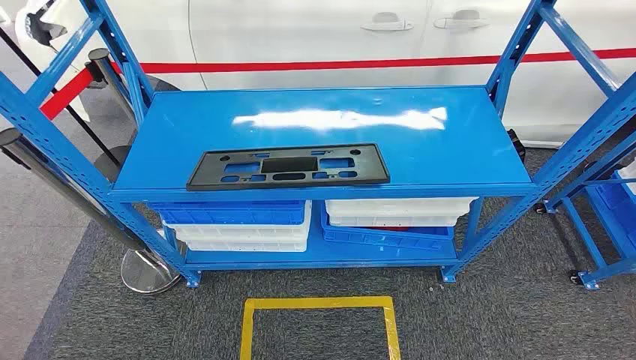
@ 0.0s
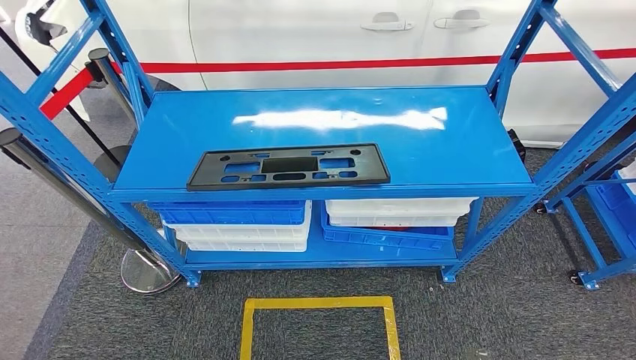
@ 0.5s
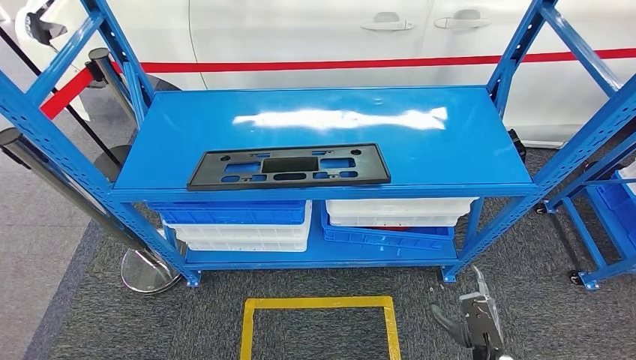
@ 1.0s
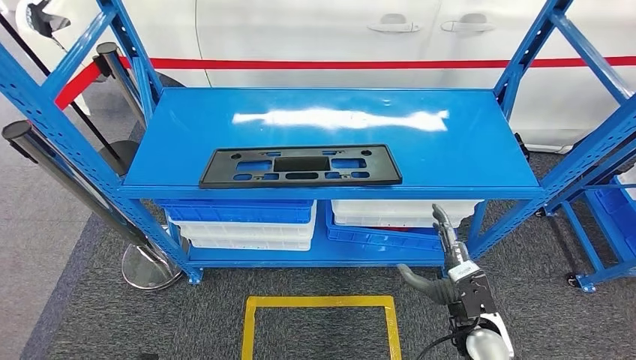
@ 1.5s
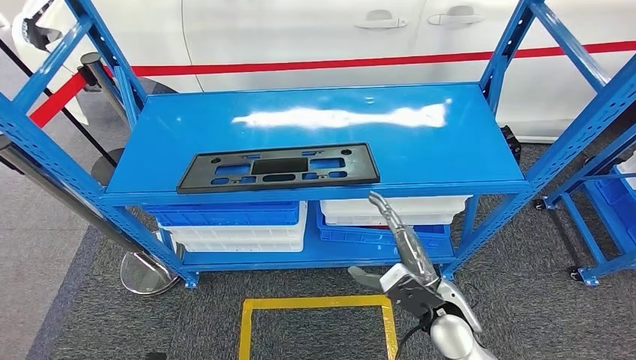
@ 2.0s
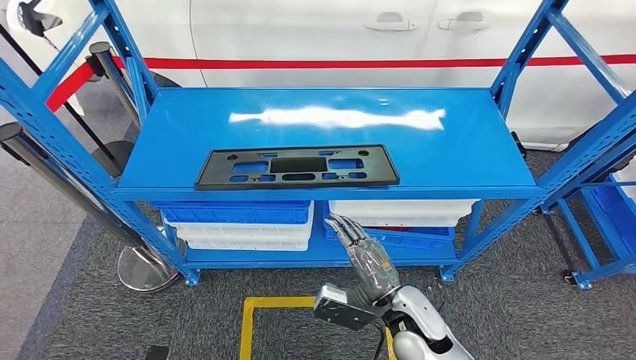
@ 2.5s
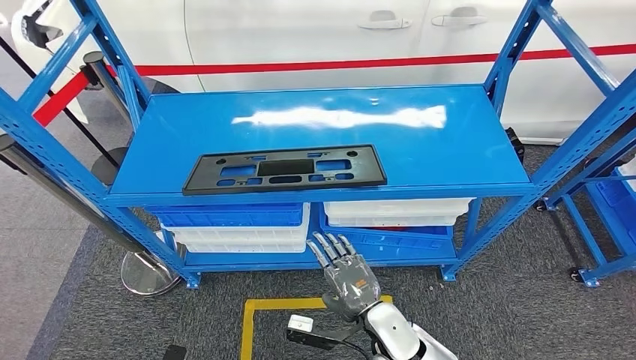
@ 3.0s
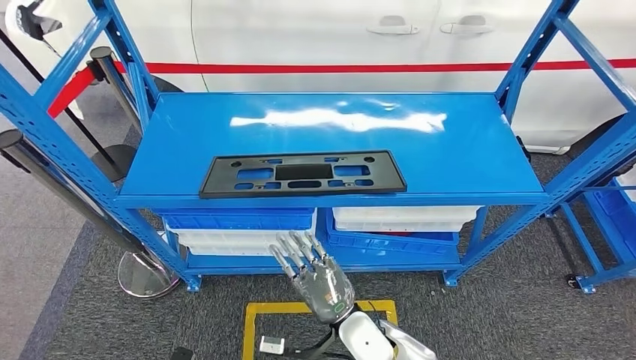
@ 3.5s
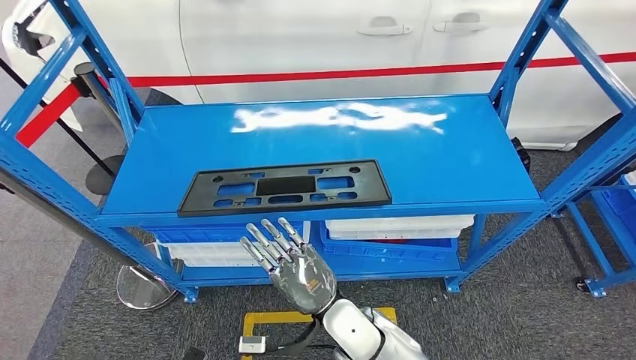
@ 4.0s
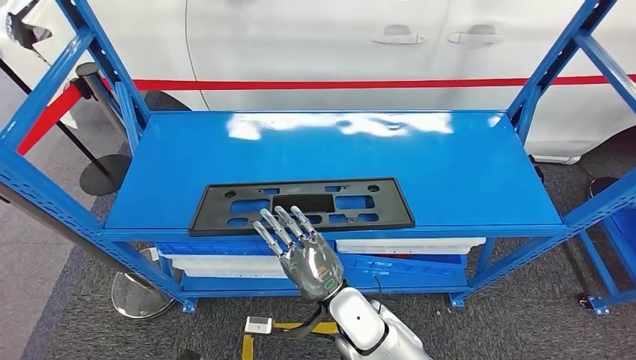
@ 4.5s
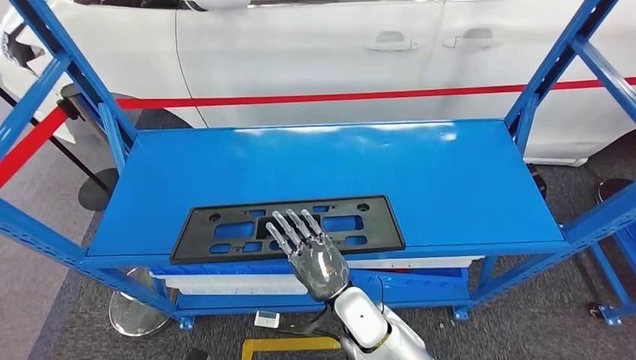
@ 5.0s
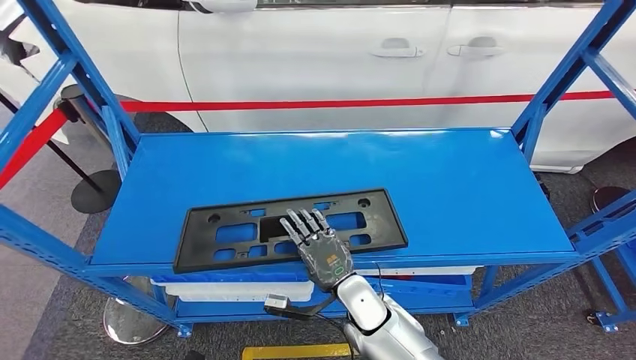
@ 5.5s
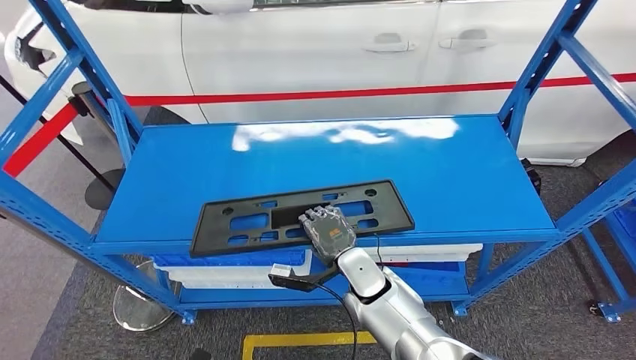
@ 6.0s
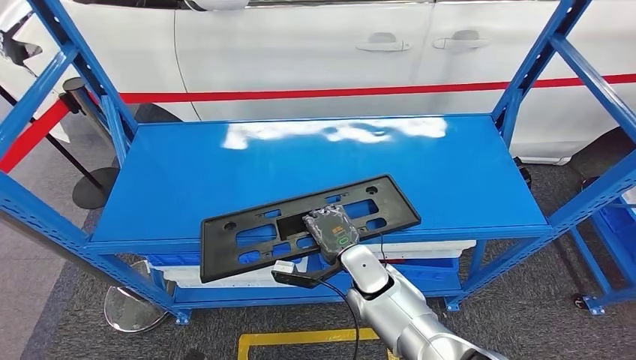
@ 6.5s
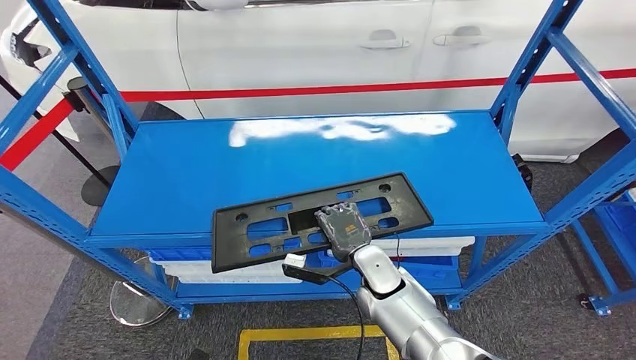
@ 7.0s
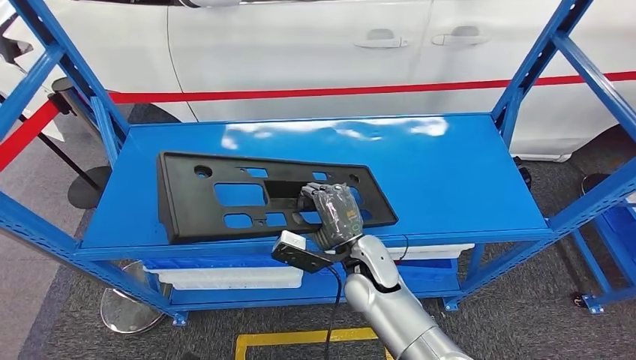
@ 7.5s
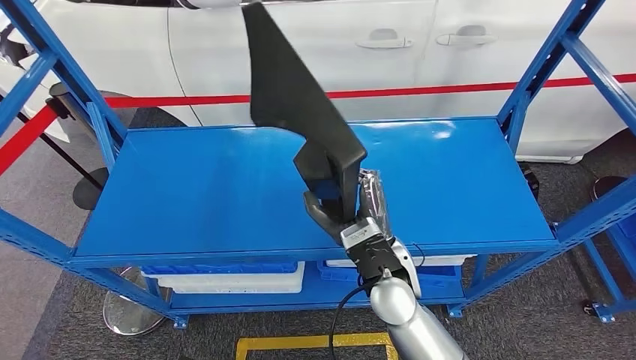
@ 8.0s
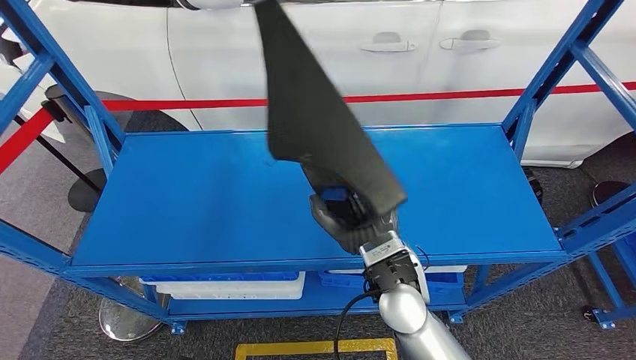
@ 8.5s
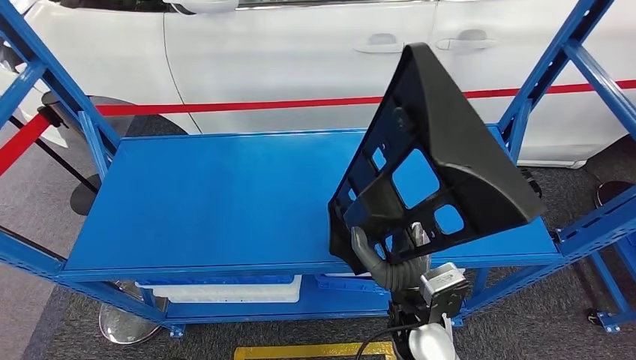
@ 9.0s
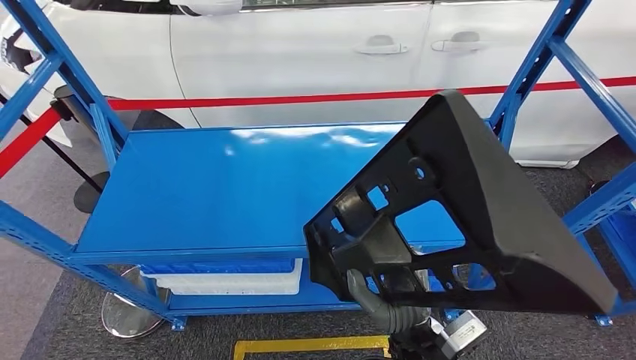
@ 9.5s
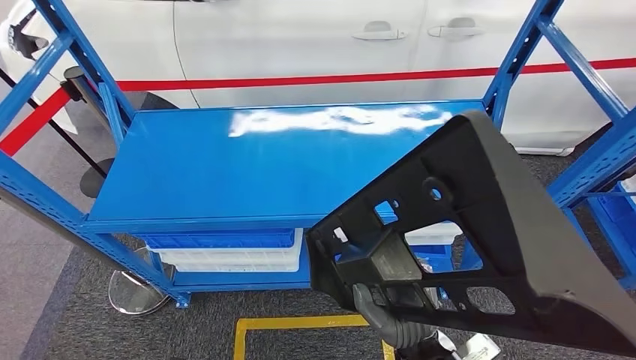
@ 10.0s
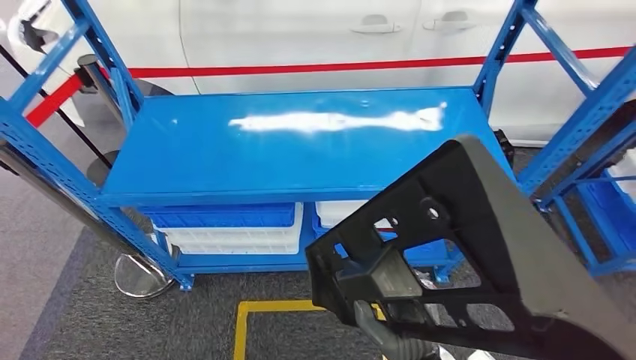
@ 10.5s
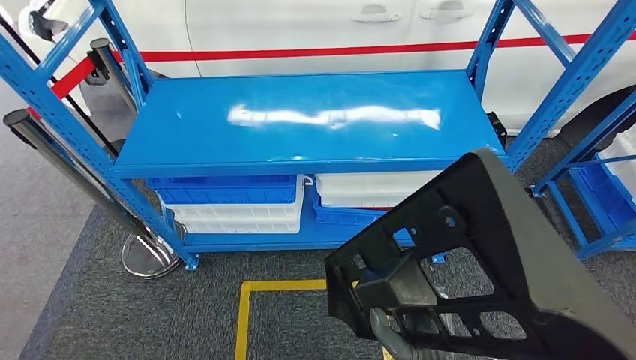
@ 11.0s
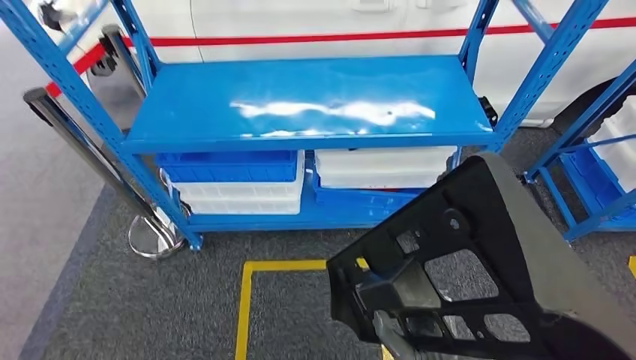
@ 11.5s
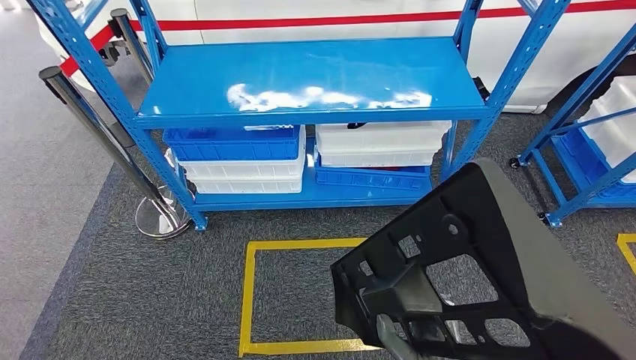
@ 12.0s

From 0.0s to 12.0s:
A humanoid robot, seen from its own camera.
Step, from 0.0s to 9.5s: Pick up the large material from the shelf.

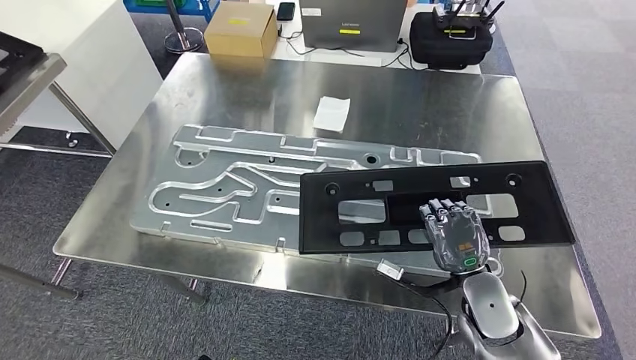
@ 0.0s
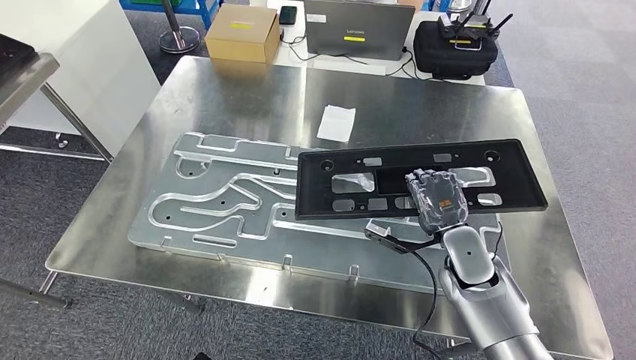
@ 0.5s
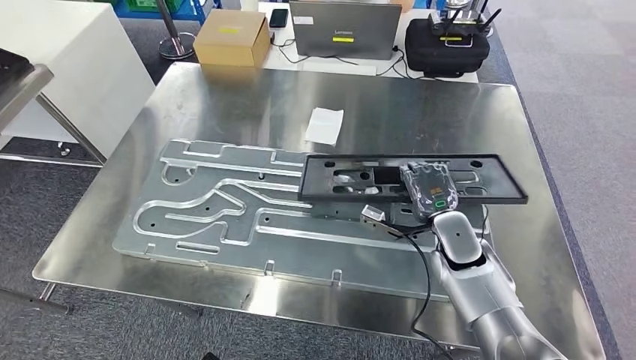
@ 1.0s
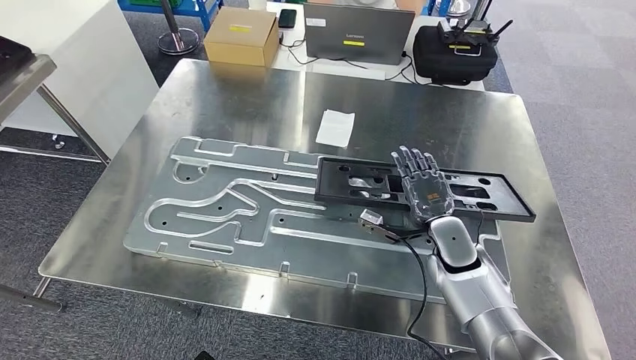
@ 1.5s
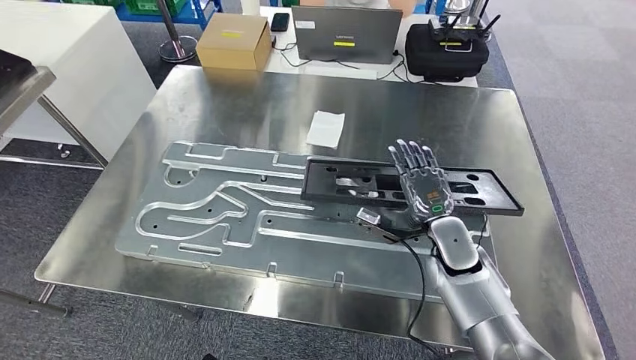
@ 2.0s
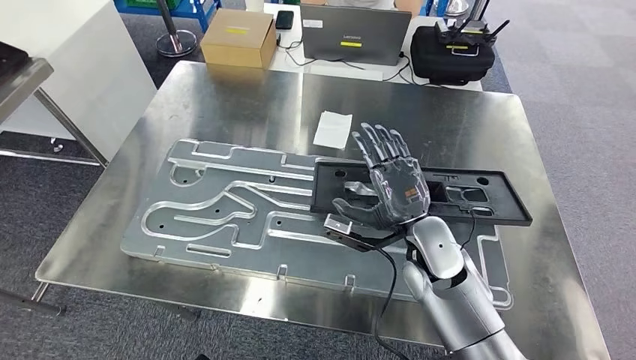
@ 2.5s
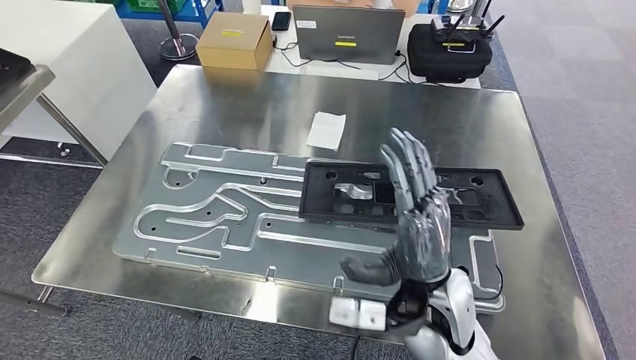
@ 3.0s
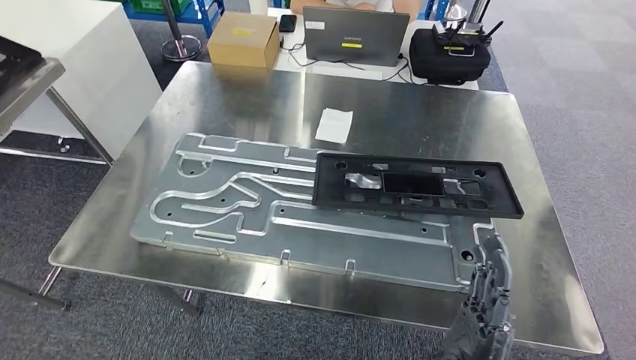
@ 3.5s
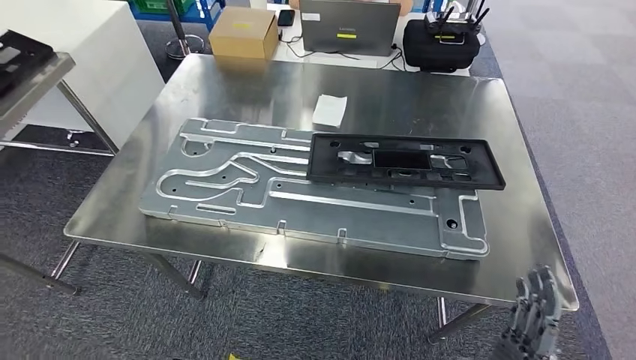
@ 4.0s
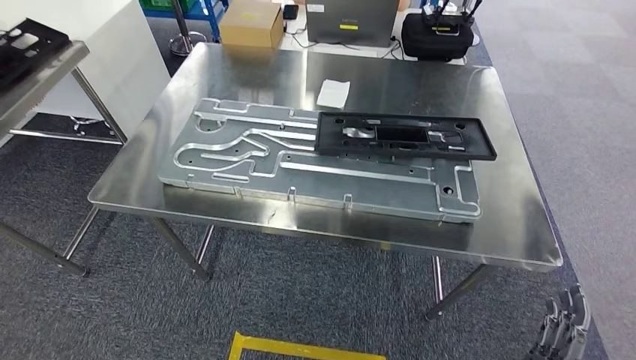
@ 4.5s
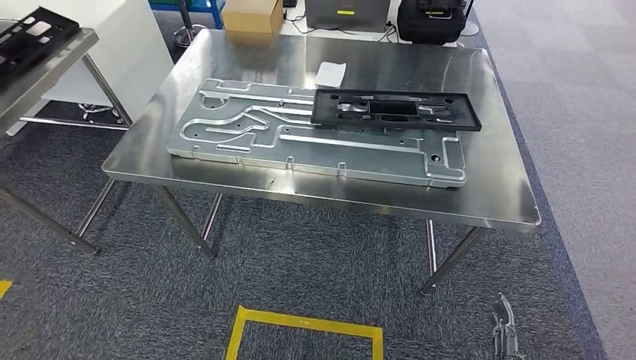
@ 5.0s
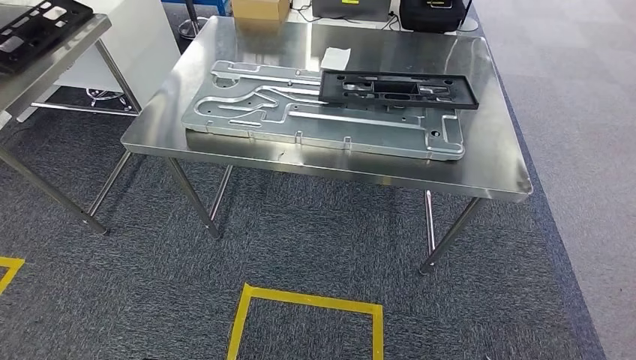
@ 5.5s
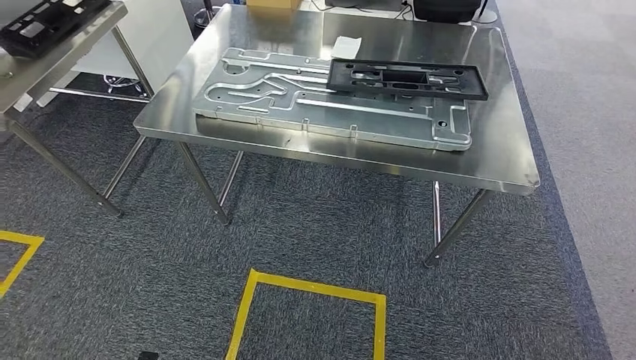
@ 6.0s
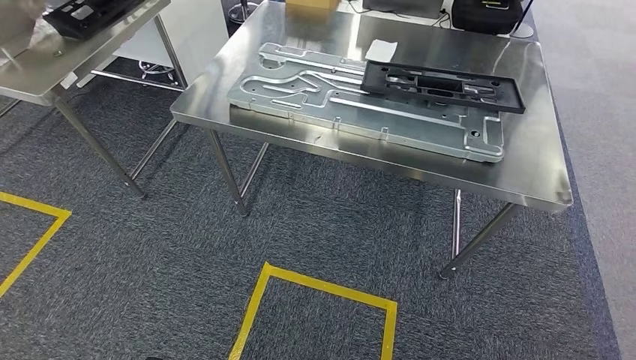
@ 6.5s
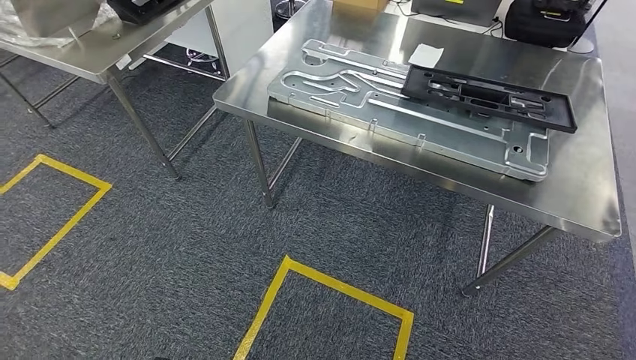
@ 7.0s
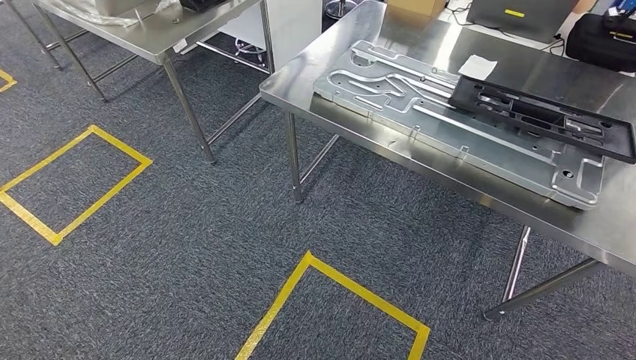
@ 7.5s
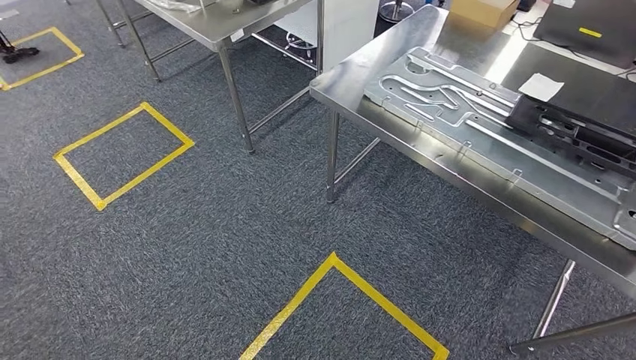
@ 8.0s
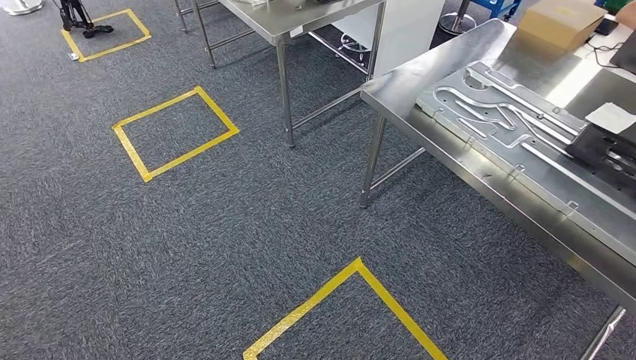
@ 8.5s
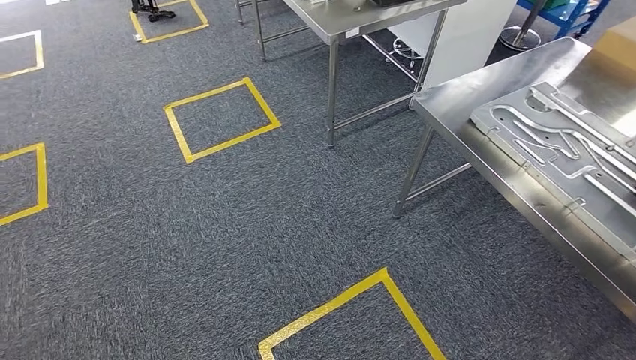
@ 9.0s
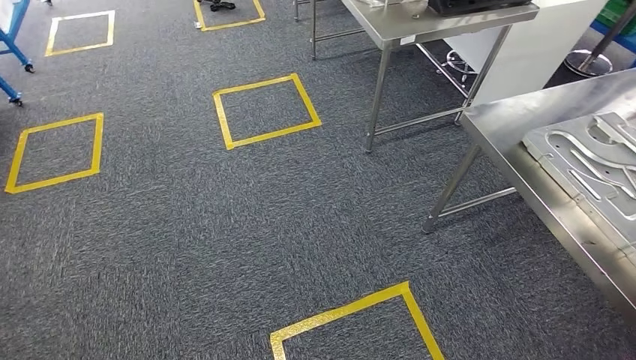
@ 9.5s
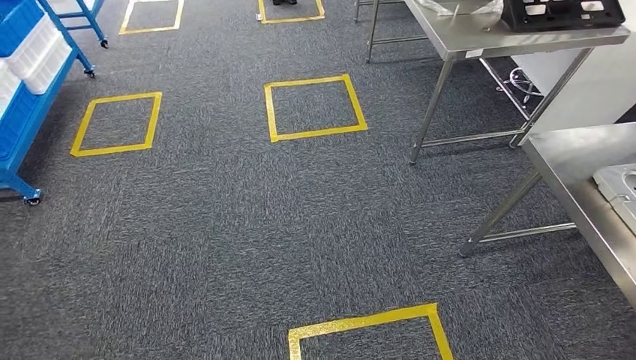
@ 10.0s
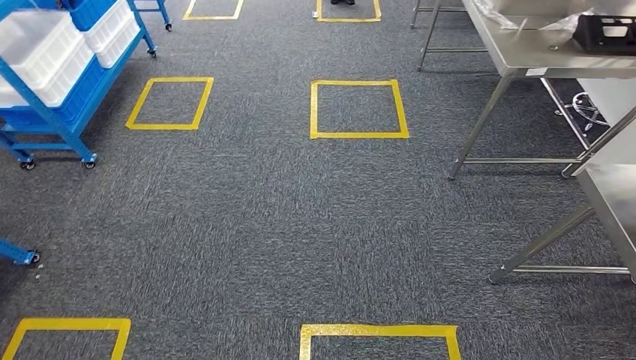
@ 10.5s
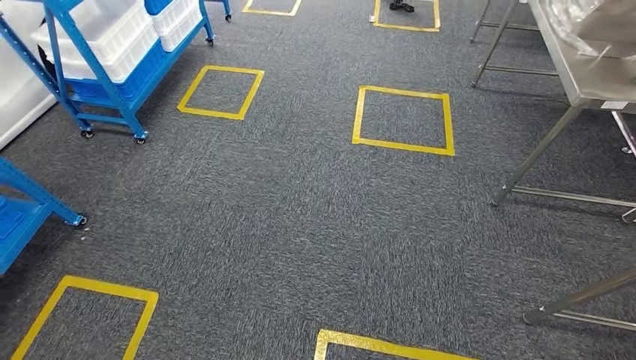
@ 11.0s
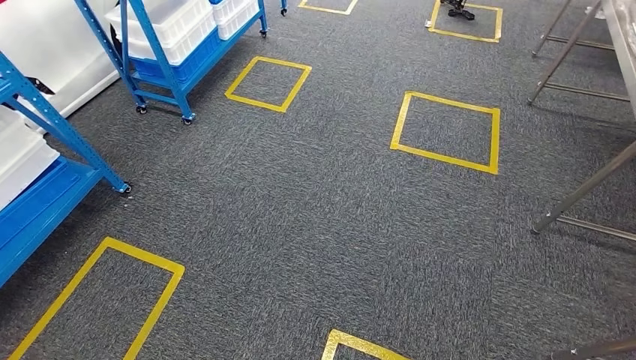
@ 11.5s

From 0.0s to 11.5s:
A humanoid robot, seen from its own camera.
Step, from 0.5s to 6.0s: Insert the large material into the corresponding hole on the workbench.
